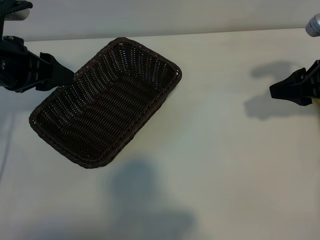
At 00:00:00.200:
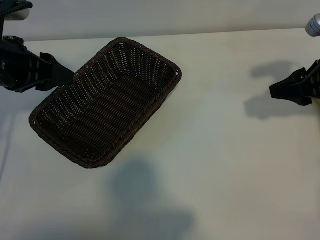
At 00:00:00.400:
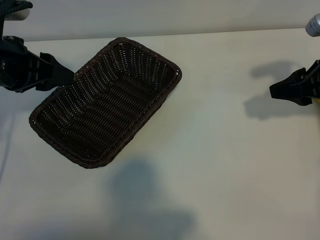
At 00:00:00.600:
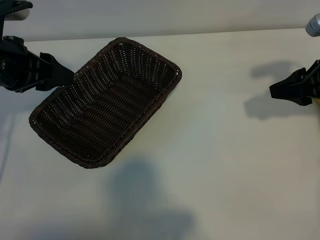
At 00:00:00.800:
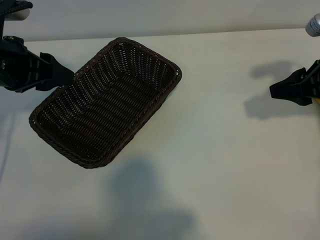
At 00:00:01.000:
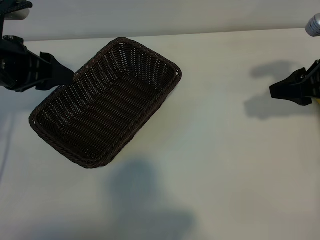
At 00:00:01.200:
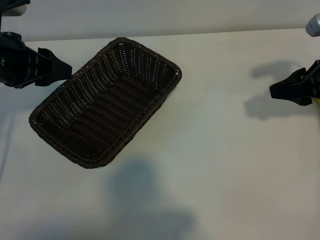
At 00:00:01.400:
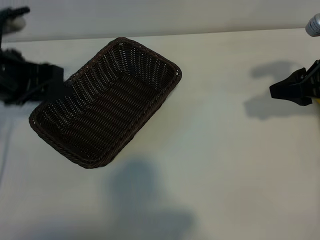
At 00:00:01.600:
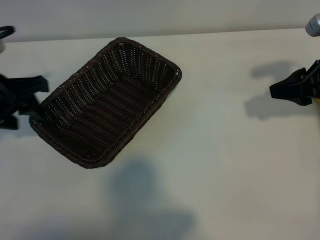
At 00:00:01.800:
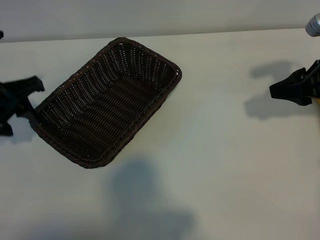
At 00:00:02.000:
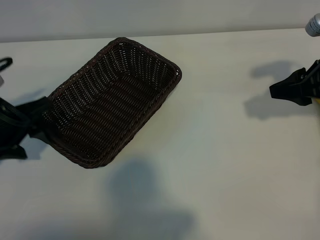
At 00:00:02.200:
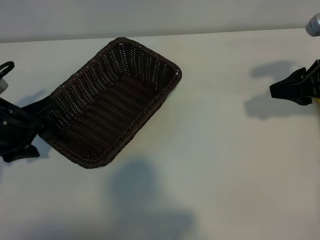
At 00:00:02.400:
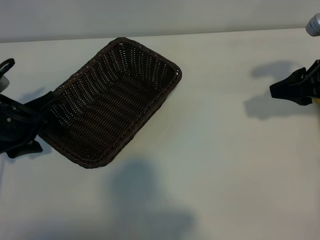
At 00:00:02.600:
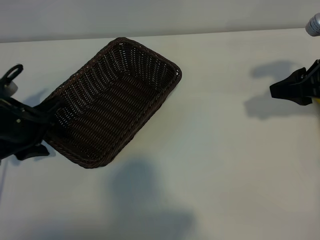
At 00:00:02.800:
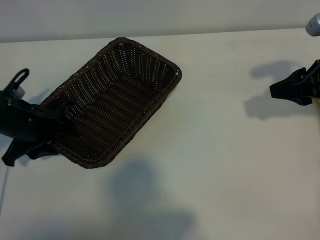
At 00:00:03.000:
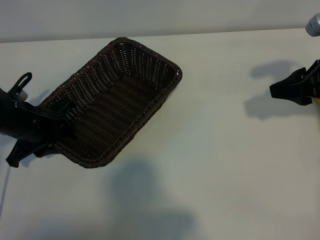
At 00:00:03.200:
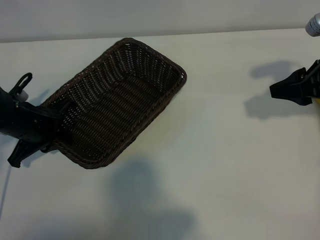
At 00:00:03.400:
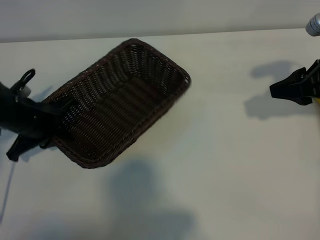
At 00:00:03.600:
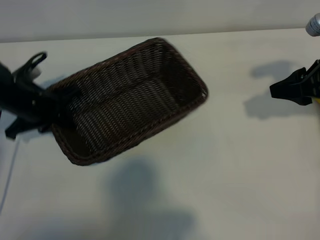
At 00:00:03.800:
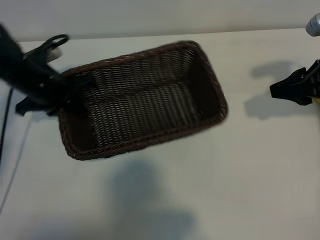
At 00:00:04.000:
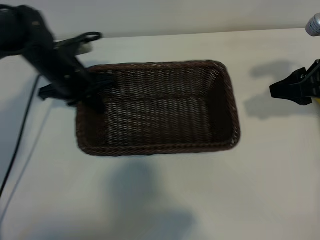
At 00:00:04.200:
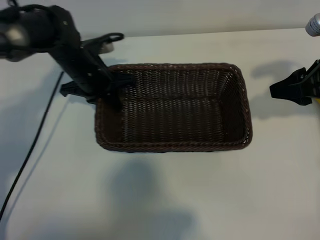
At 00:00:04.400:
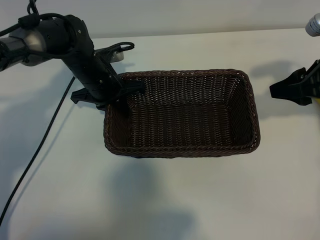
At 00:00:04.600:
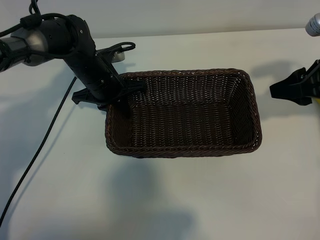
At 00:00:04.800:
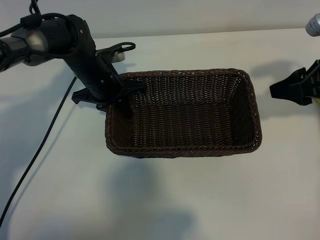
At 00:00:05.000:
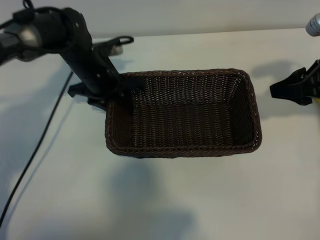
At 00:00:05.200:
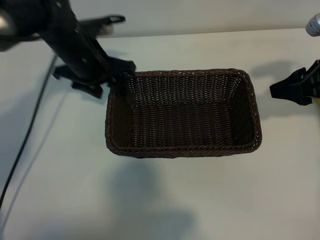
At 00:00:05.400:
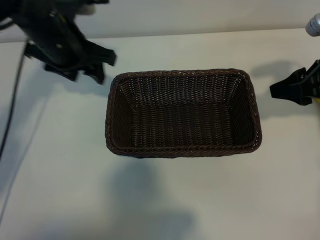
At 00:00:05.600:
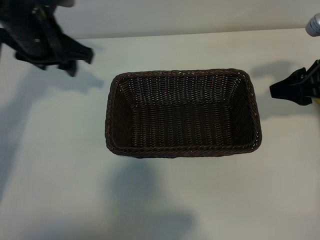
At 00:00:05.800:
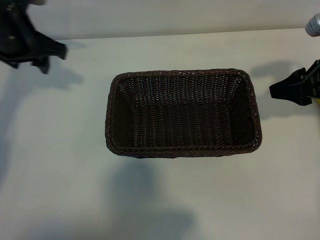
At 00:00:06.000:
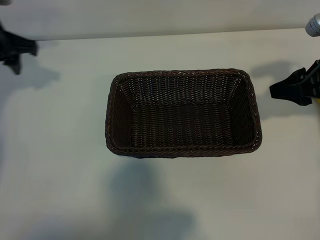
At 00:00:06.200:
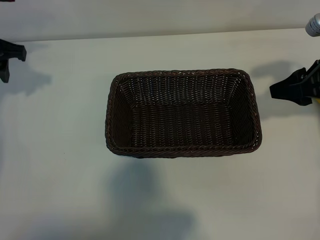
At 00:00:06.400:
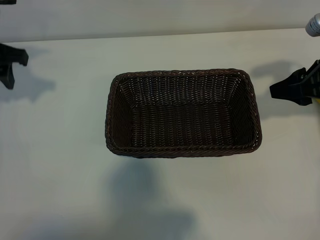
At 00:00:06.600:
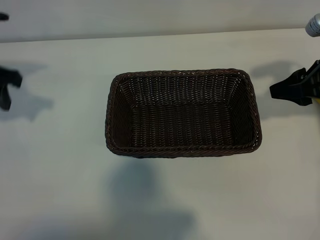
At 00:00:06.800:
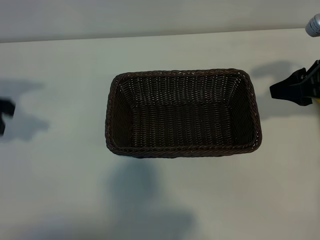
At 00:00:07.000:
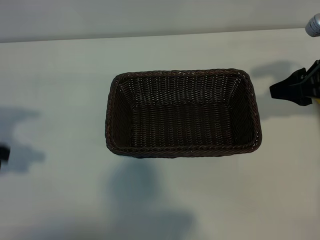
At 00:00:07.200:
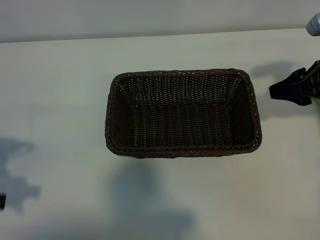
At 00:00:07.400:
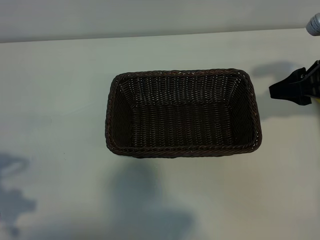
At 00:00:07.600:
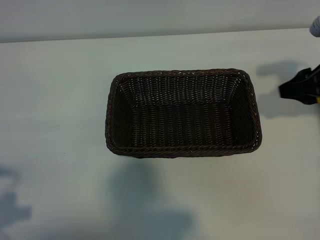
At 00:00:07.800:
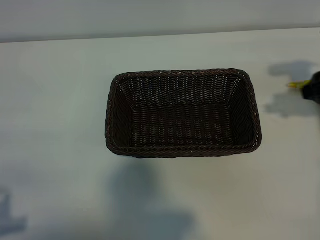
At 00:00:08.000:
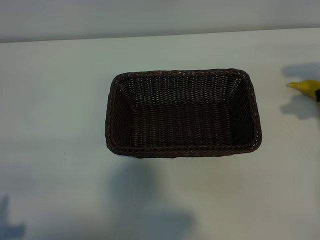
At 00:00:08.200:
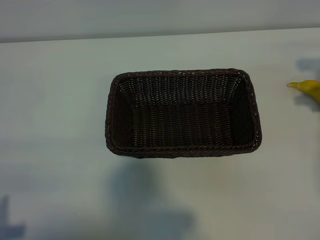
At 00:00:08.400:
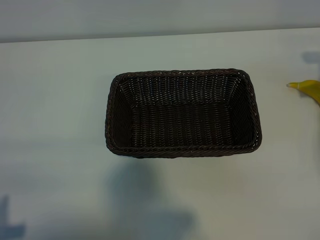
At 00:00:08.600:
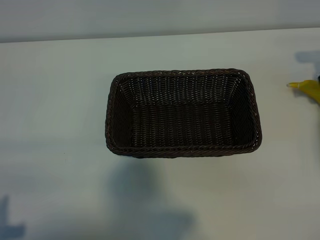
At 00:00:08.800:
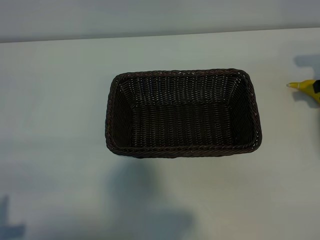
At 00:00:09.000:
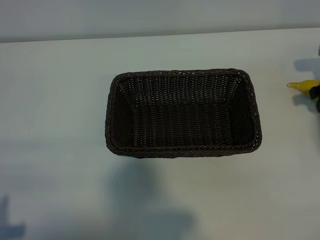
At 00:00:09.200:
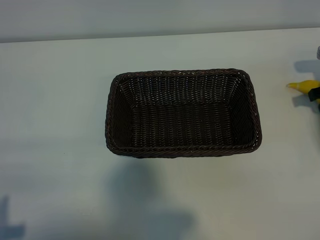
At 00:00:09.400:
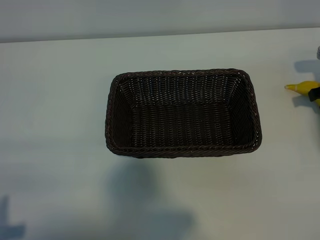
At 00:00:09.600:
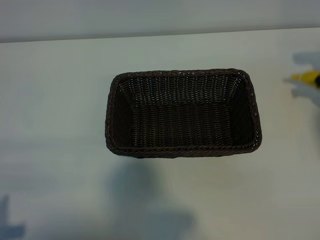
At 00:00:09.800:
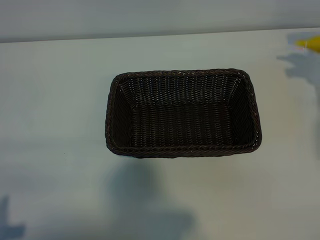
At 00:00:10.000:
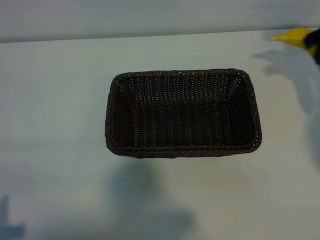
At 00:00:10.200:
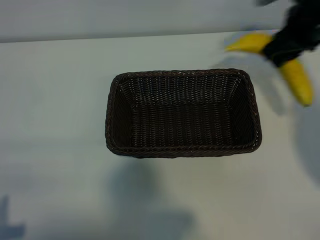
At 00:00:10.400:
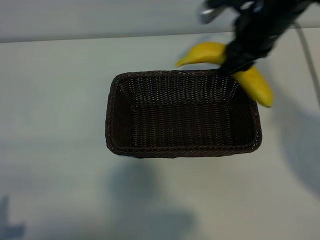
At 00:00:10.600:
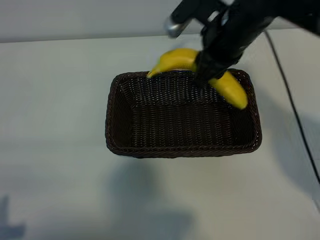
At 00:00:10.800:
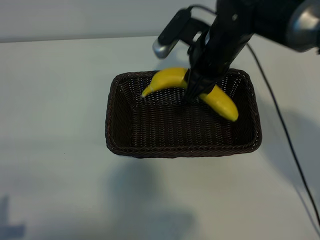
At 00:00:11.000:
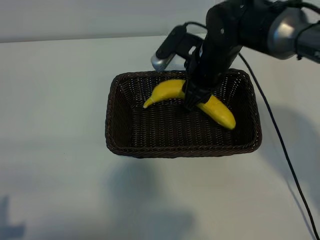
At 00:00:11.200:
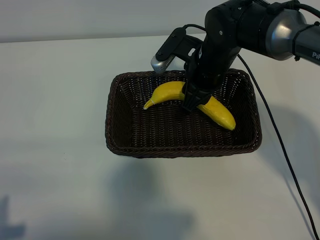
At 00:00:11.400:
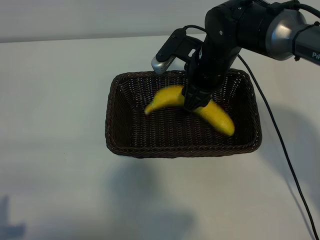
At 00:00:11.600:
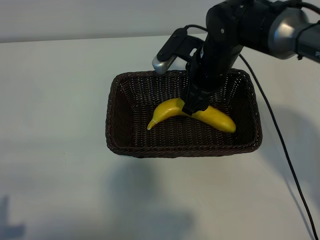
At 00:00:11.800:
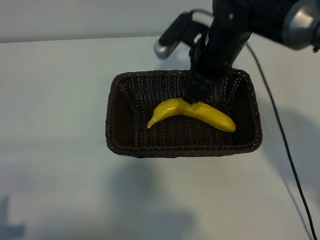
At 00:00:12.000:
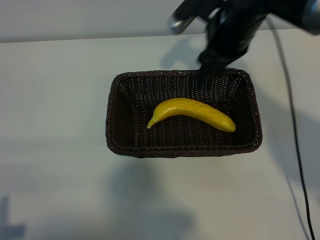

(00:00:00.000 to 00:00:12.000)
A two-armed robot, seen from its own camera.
Task of the whole recording: pick up the banana and put it into the basket.
Step, 00:00:01.000 - 00:00:03.200: Grasp the basket with the left gripper.
Step, 00:00:03.400 - 00:00:05.000: Place the basket in the center of the table with the left gripper.
Step, 00:00:05.200 - 00:00:09.400: Grasp the banana with right gripper.
Step, 00:00:09.600 - 00:00:11.600: Place the banana in the basket with right gripper.
